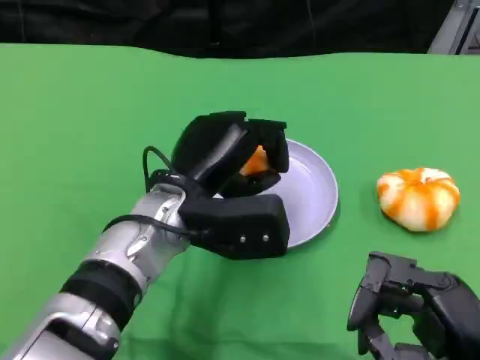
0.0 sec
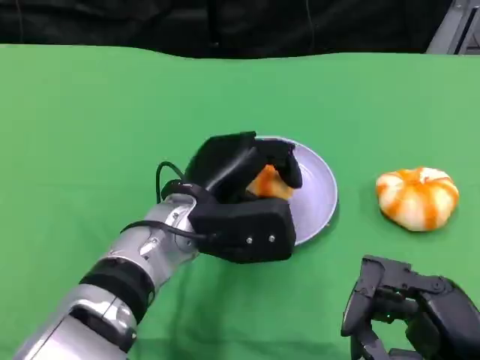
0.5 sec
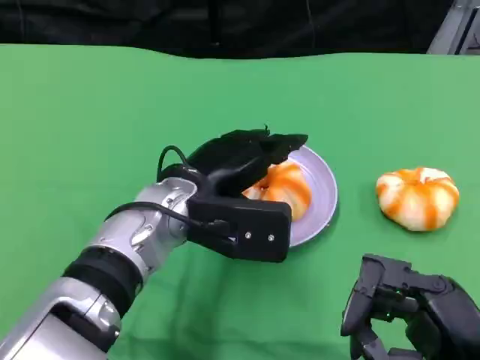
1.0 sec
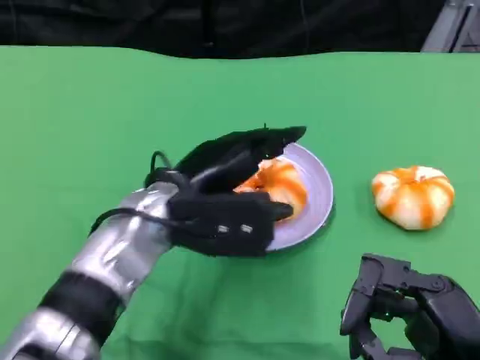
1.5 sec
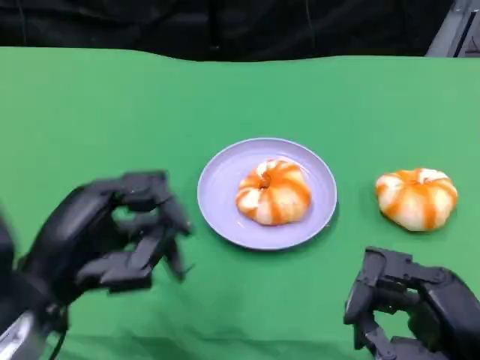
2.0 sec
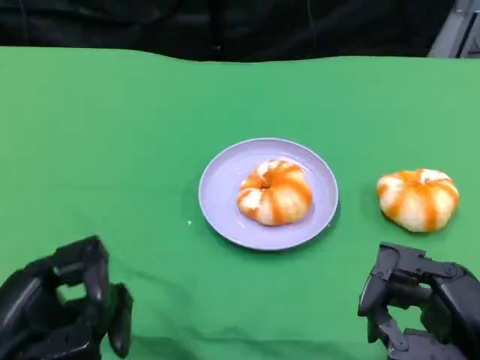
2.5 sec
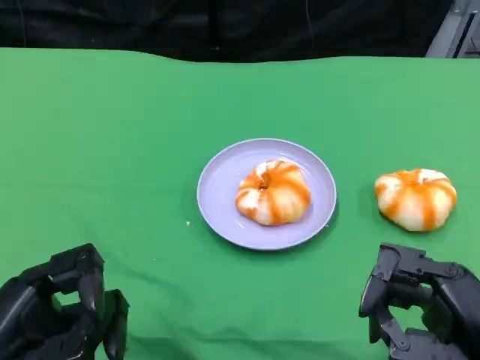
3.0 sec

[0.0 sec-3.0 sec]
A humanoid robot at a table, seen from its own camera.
Task of the whole recording: Grasp the bread from the table and place it into the plate.
1.5 sec to 3.0 sec: The left hand heads backward and to the left, covering roughly 20 cm.

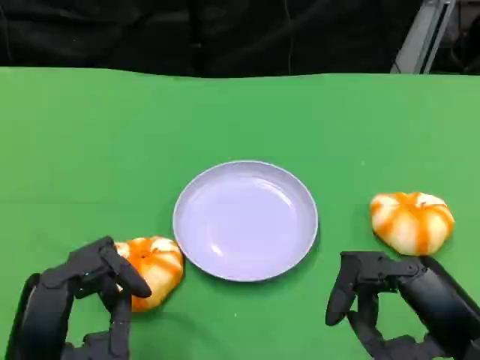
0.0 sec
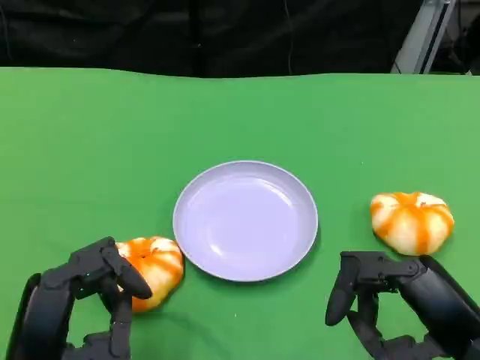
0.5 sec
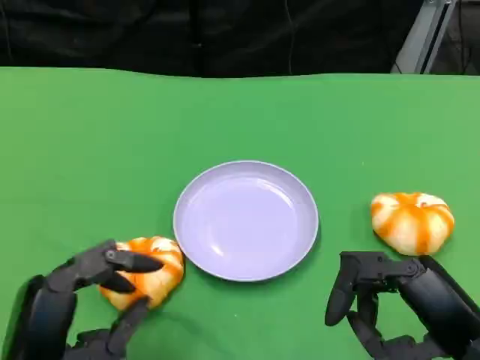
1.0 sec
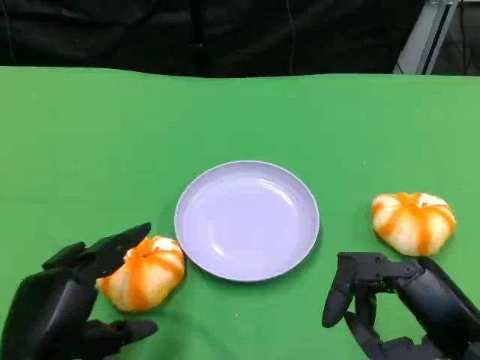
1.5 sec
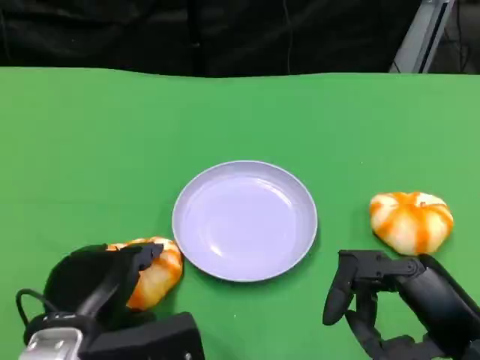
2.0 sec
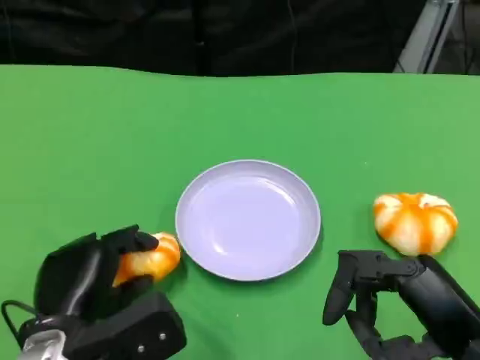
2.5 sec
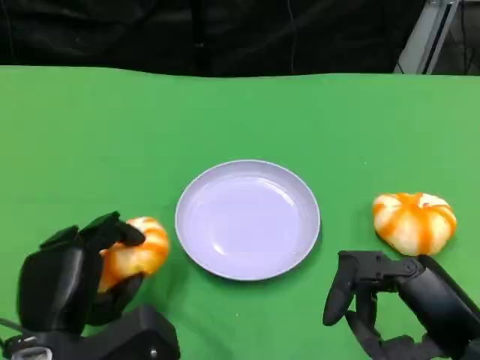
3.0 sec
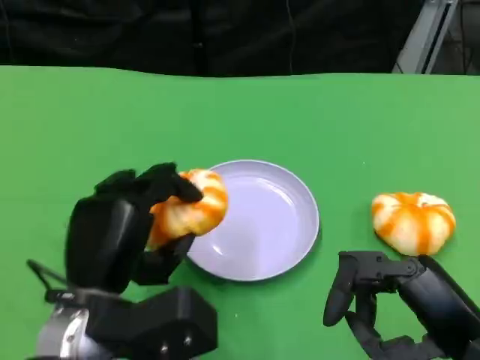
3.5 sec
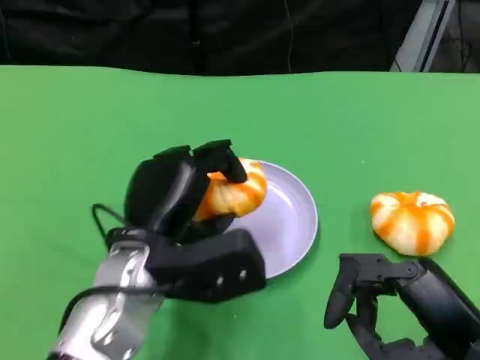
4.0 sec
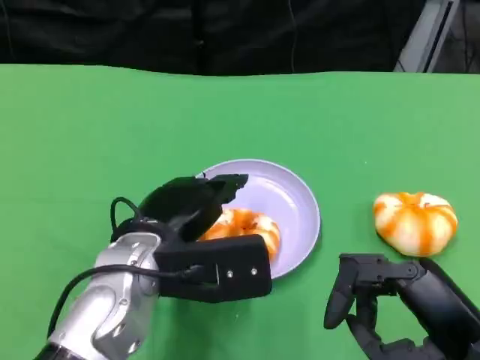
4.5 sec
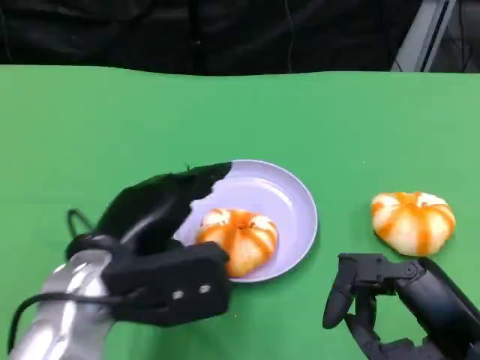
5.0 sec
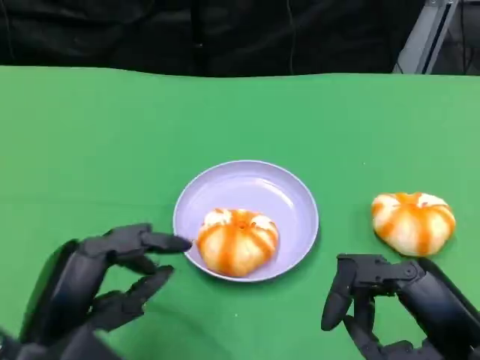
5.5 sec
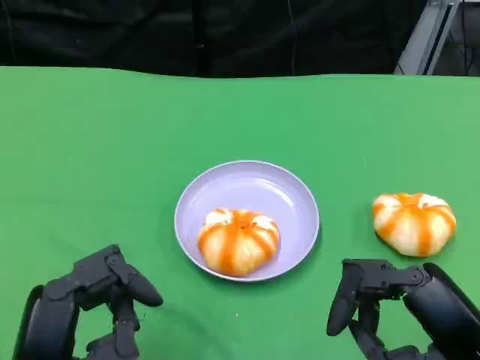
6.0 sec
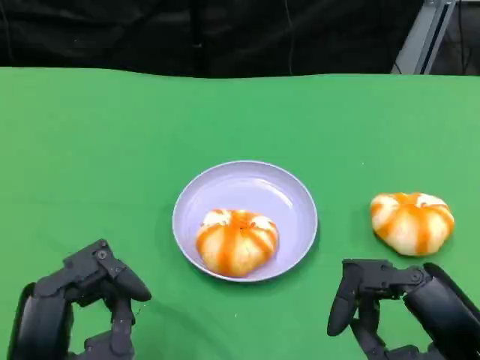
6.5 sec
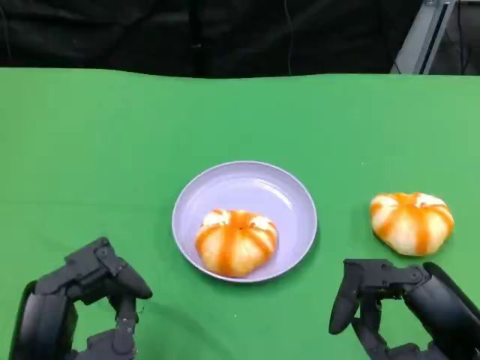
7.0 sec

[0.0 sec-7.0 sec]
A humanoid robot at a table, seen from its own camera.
Task of the whole recording: Grasp the bread from the table and place it into the plate.
0.0 sec to 2.0 sec: The left hand heads forward, covering roughly 5 cm.
5.0 sec to 7.0 sec: The left hand is displaced backward by some 10 cm.

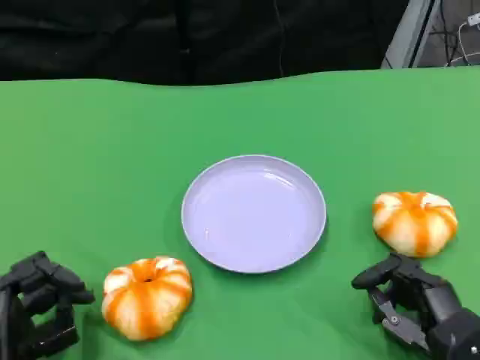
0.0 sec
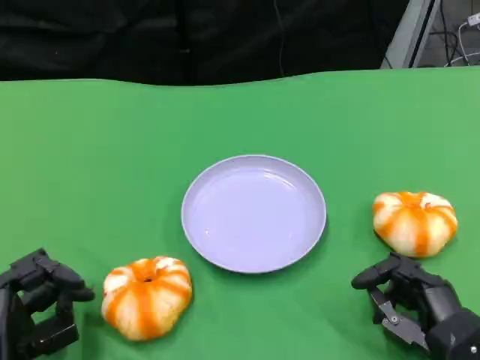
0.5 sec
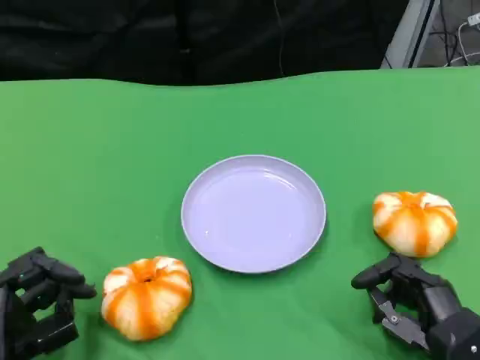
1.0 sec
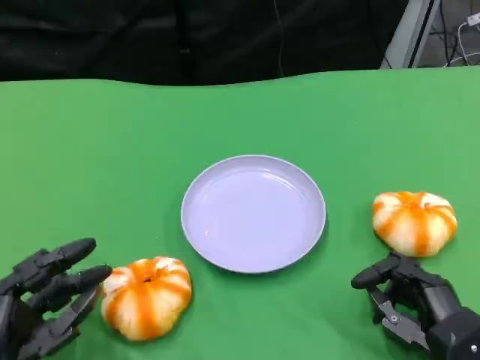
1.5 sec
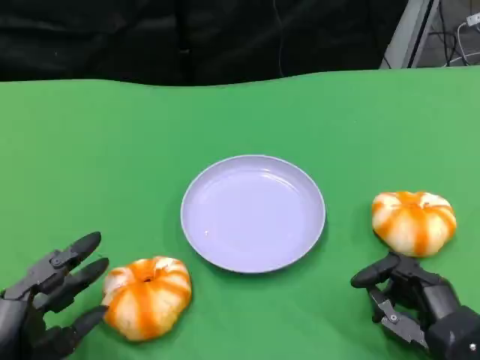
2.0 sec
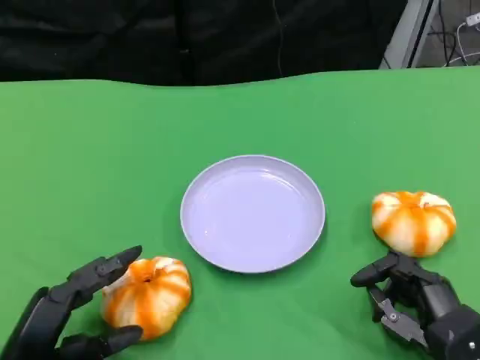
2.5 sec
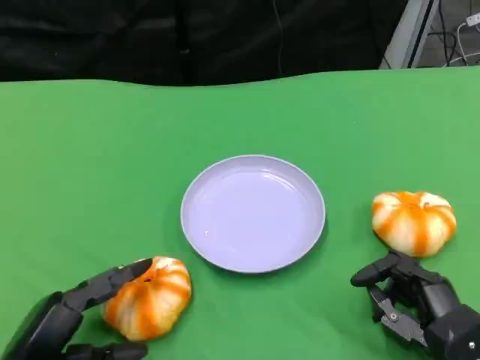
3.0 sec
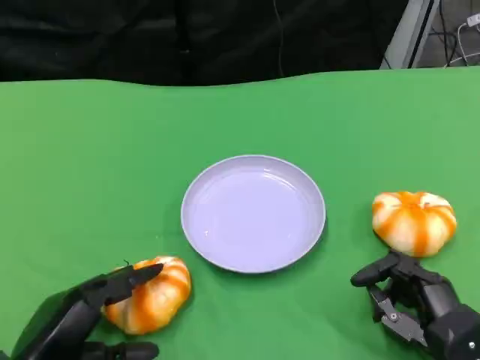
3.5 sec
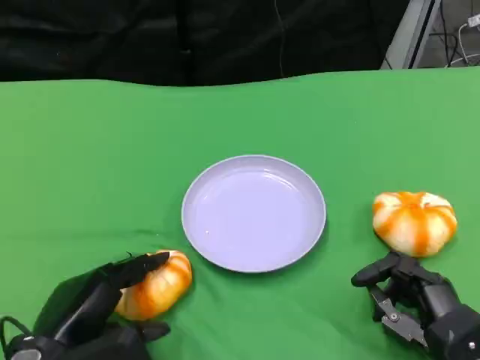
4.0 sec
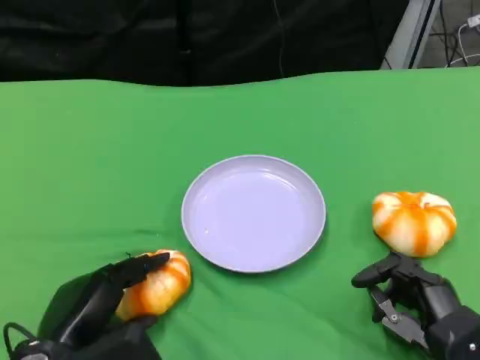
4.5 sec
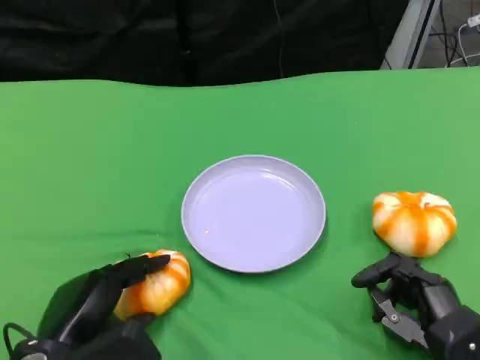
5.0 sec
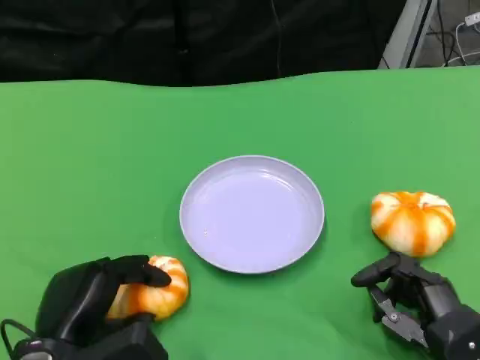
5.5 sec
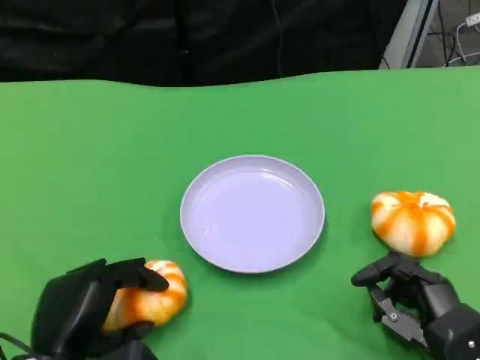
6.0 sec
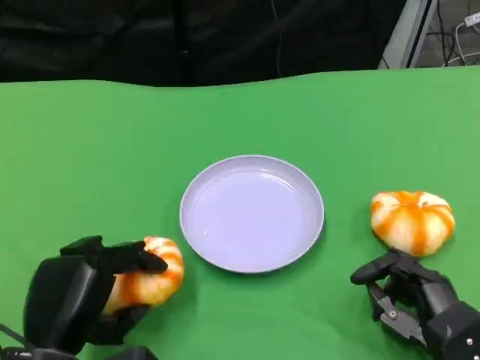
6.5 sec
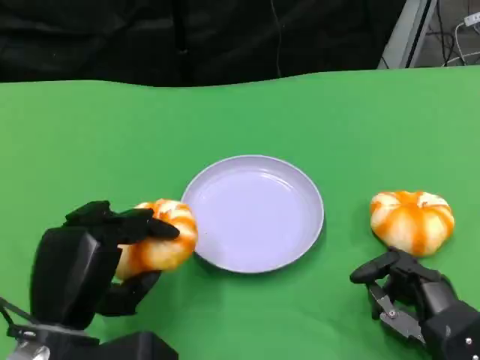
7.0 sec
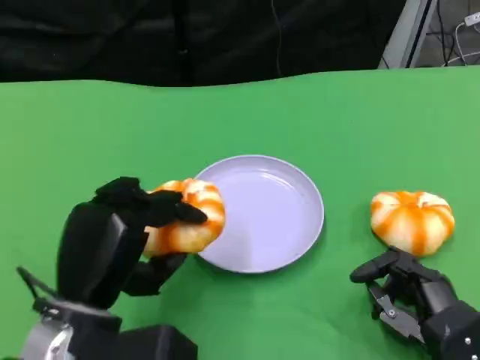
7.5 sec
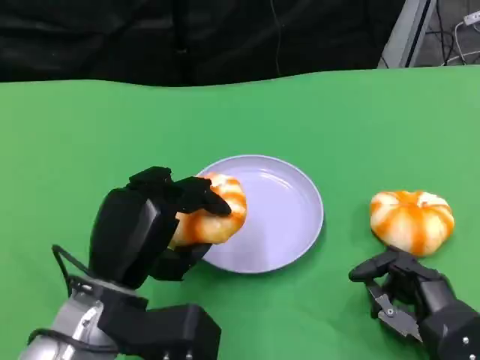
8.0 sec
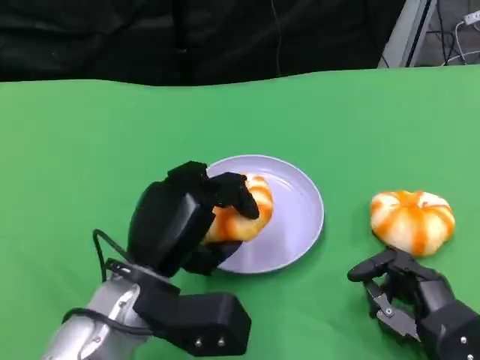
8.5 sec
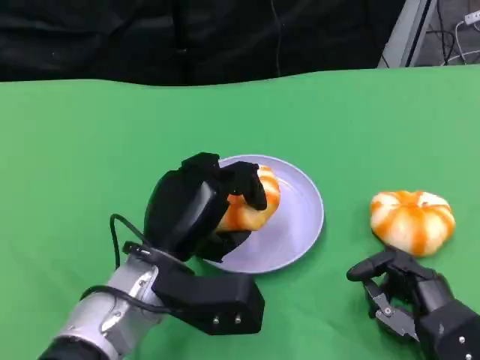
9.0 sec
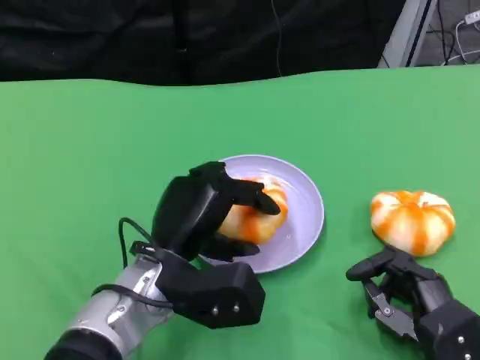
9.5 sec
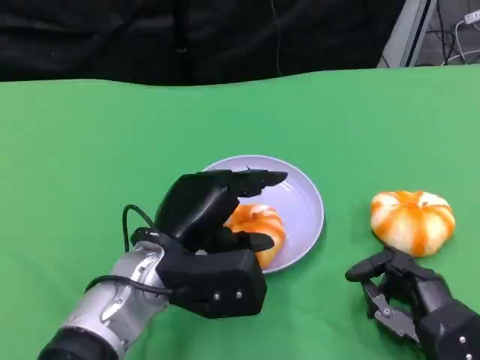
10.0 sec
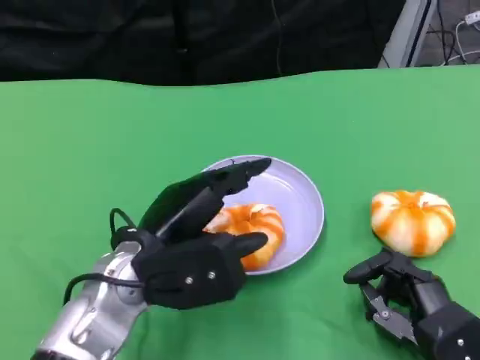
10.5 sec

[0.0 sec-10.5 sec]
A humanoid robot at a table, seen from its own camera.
Task of the whole recording: Grasp the bread from the table and place it into the plate.
0.0 sec to 2.0 sec: The hands move only a little.
2.0 sec to 4.0 sec: The left hand ends up roughly 5 cm from where it was.
6.5 sec to 8.5 sec: The left hand shifts roughly 10 cm to the right and forward.

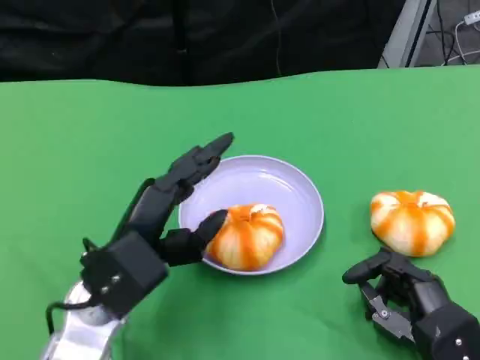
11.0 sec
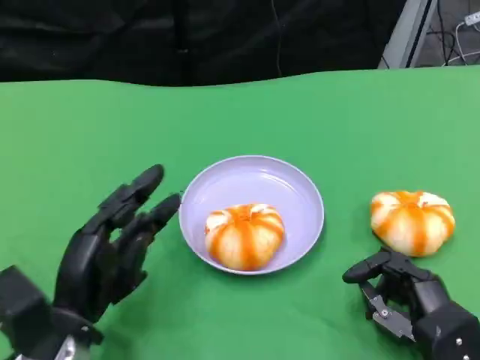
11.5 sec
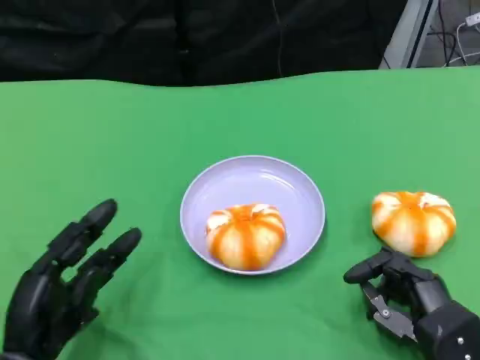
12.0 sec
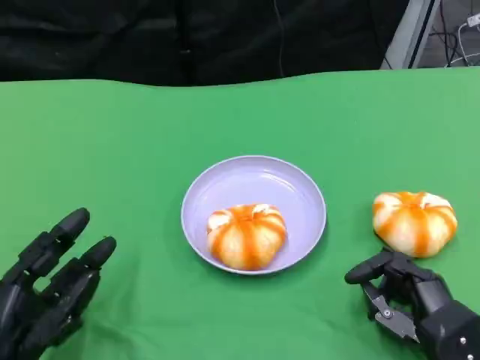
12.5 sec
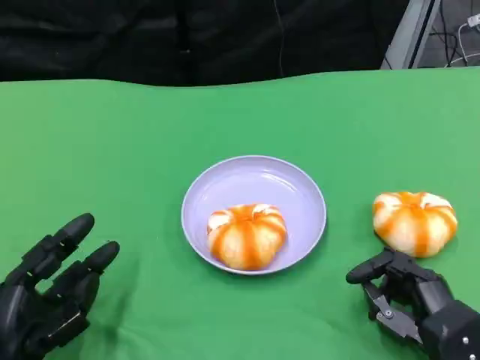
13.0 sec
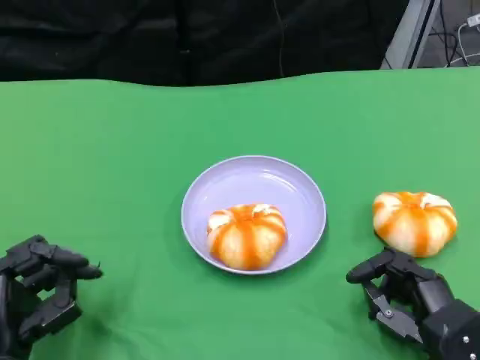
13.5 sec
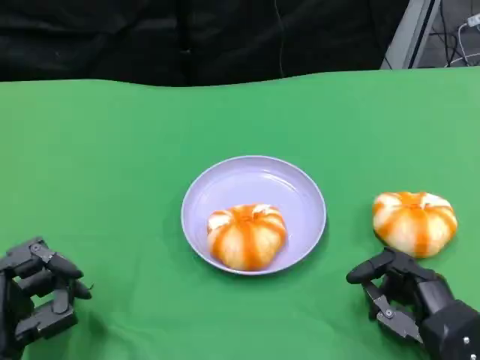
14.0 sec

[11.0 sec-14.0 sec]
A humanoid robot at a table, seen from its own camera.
Task of the whole recording: Grasp the bread from the table and place it into the plate.
11.0 sec to 12.5 sec: The left hand heads to the left, backward and downward, covering some 15 cm.

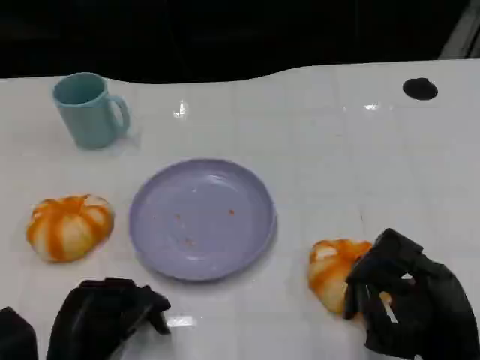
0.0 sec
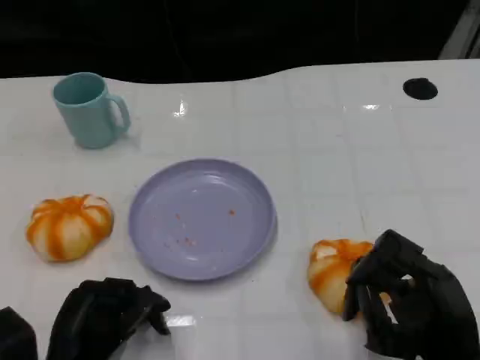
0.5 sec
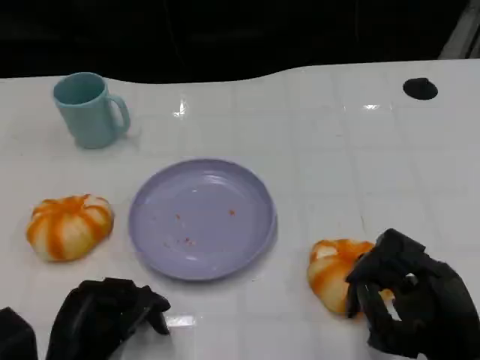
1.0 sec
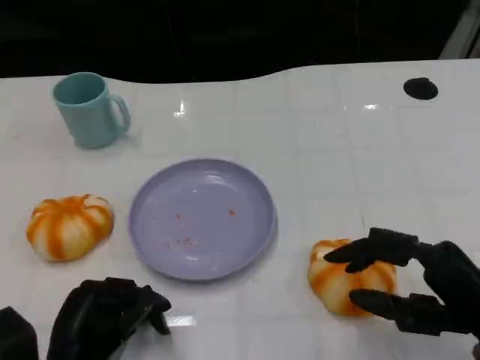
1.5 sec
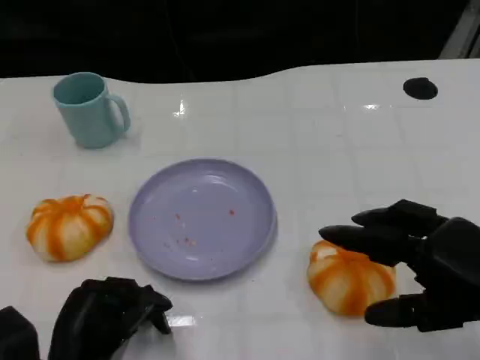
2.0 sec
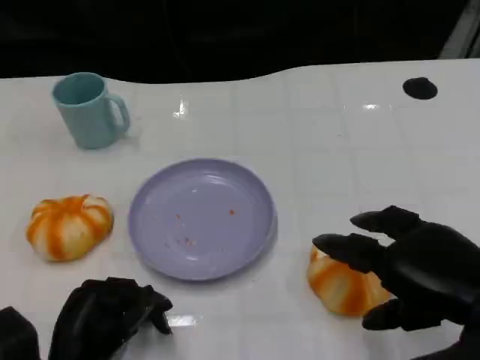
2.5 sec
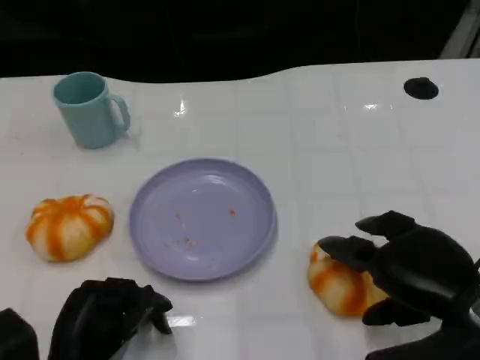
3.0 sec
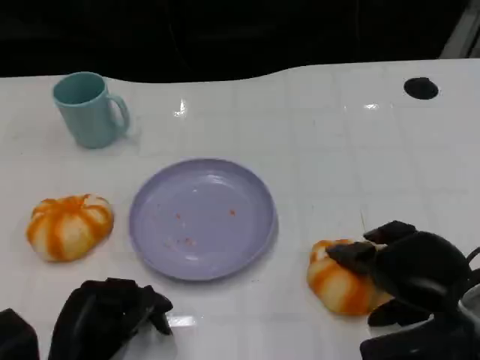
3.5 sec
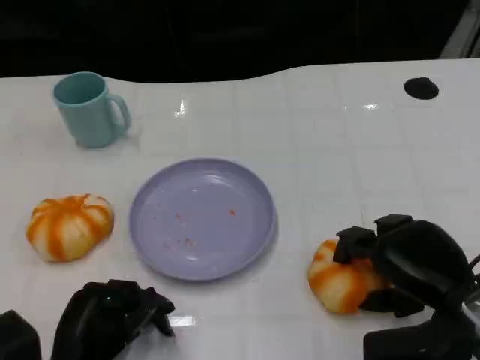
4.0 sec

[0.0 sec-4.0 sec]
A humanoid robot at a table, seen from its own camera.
Task of the whole recording: Grasp the bread from the table and place it into the plate.
0.0 sec to 2.0 sec: The right hand is displaced upward by roughly 10 cm.
2.0 sec to 4.0 sec: The right hand is displaced downward by about 5 cm.
